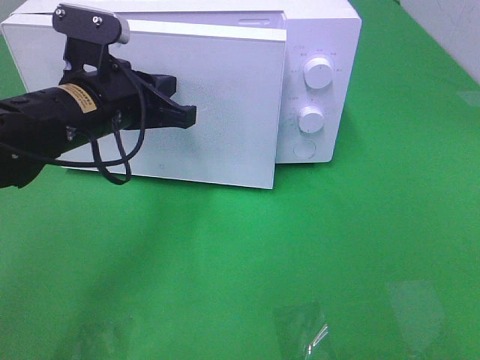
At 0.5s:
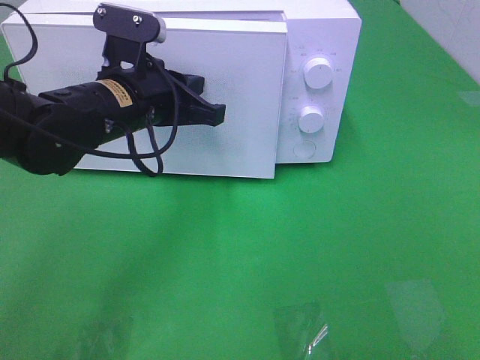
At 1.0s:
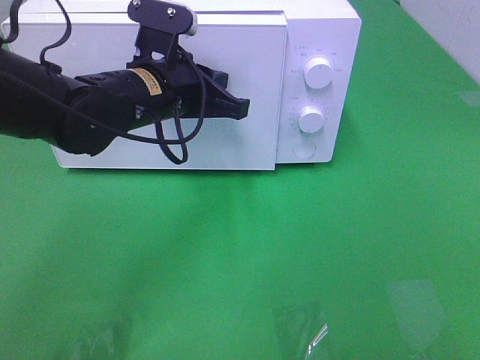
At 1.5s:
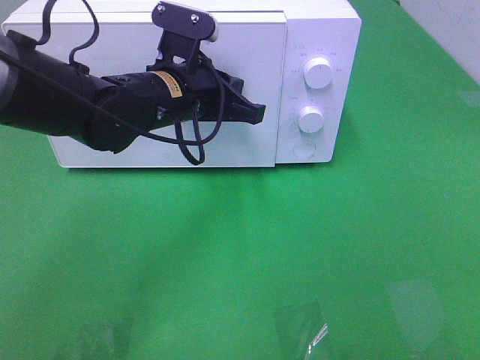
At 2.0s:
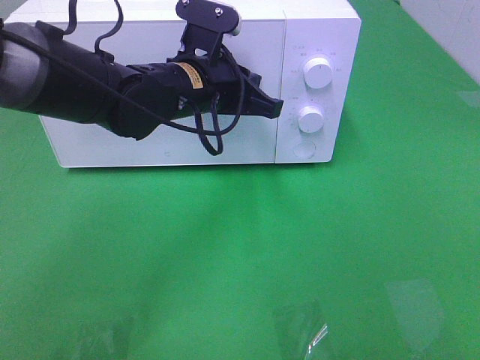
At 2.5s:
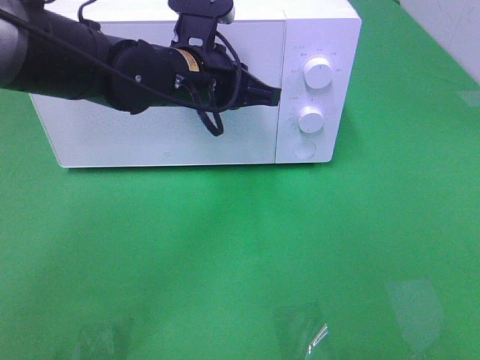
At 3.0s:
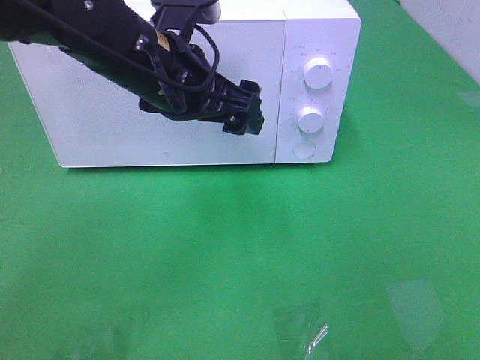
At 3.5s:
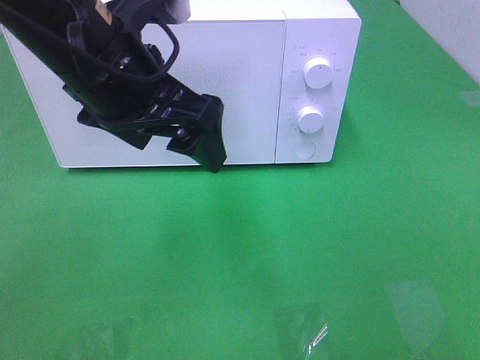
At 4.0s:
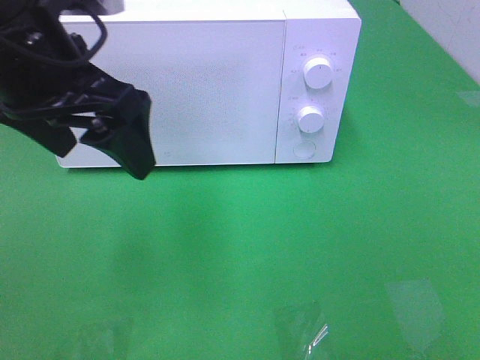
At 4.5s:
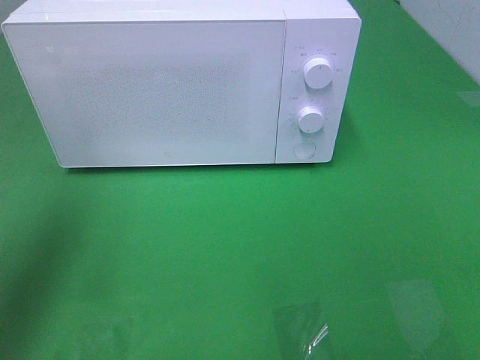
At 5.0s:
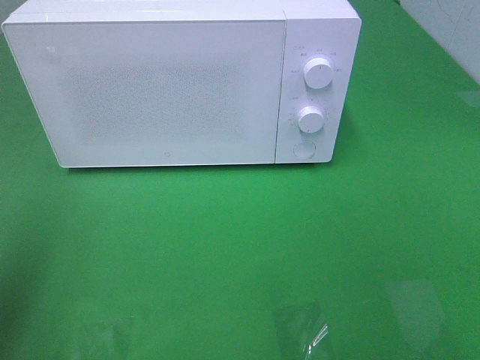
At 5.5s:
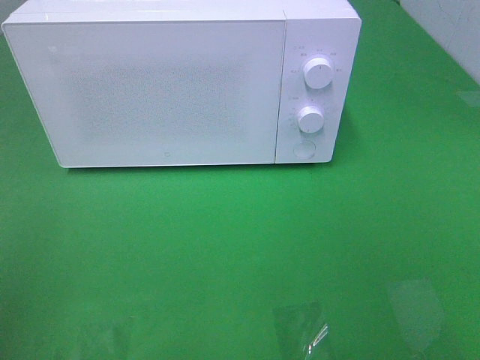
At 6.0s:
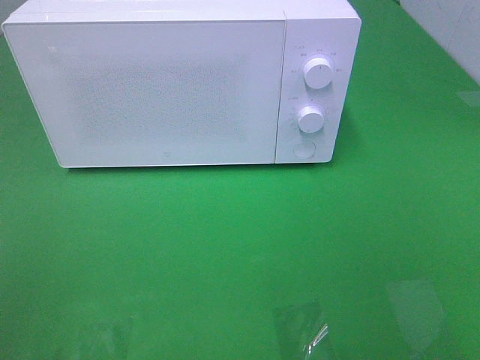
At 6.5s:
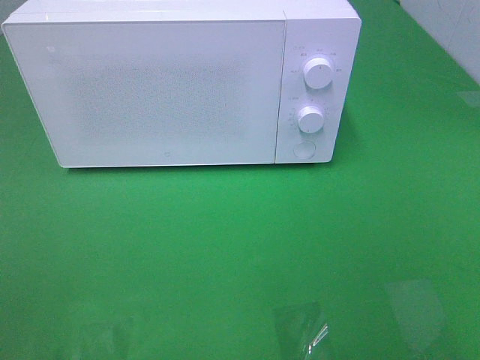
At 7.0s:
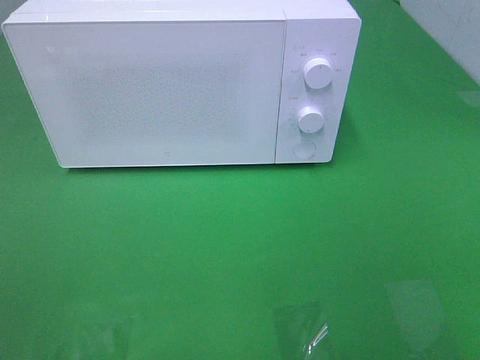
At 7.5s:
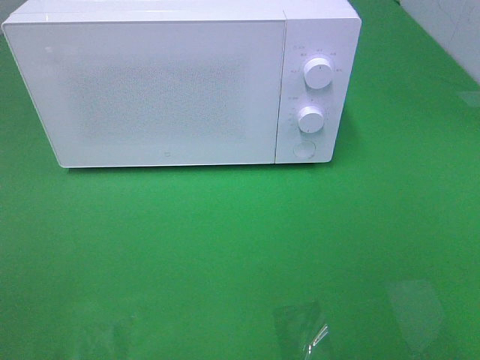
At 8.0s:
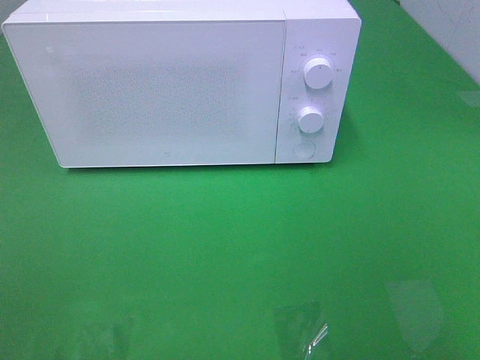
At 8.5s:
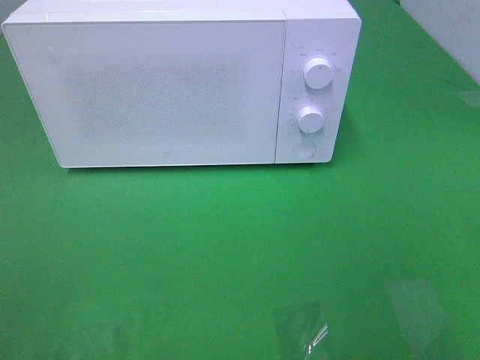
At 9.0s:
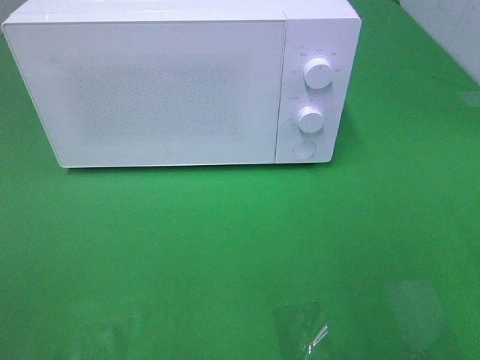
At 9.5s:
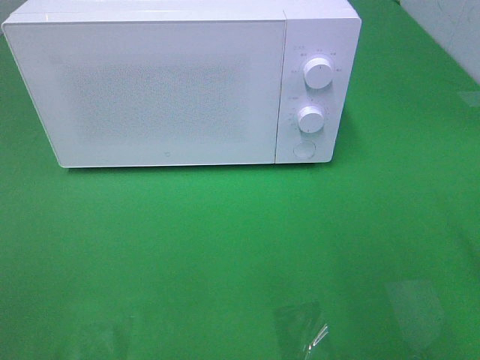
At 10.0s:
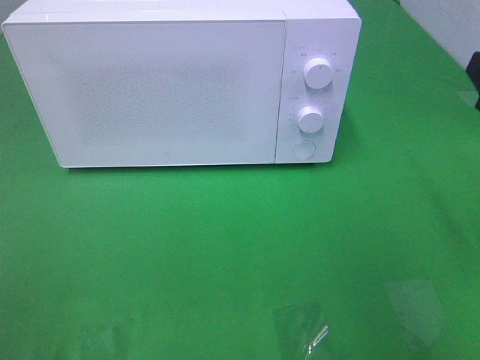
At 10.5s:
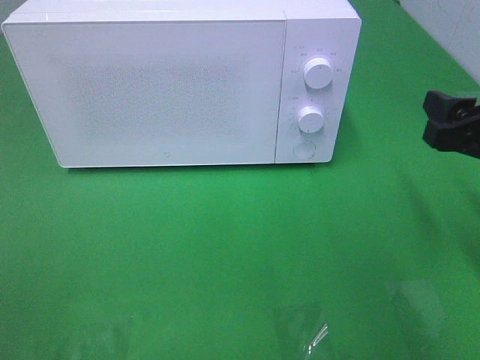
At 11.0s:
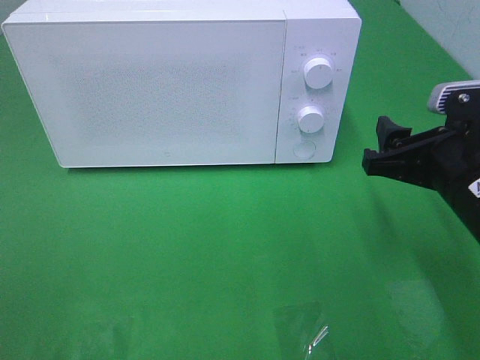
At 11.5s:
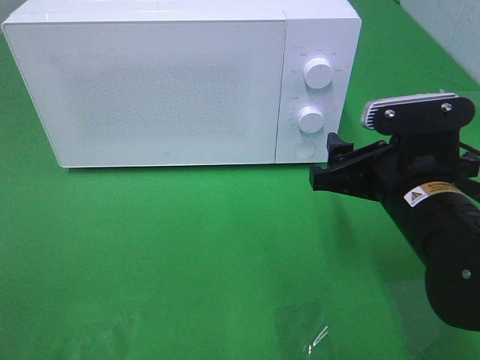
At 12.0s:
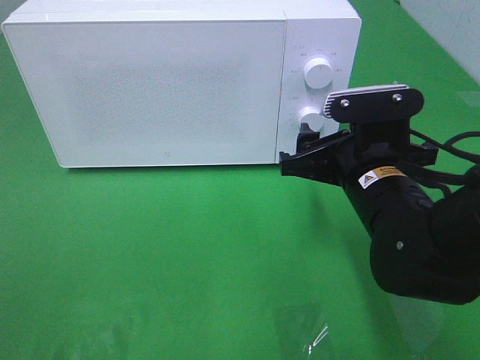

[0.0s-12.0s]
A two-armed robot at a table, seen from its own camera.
Task of the whole recording: Heat the burger.
Step, 0.0s to 2.0s: Left hand: close the microwave door.
0.0s to 2.0s: The left gripper shifts approximately 10 cm to the right and forward.
2.0s to 4.0s: The left gripper heads upward, backward and to the left, covering about 20 cm, and opens.
4.0s to 6.0s: The left gripper shifts some 30 cm backward and to the left.
10.0s to 12.0s: The right gripper shifts roughly 15 cm to the left and downward.

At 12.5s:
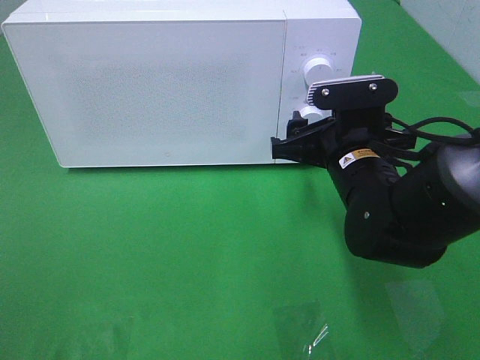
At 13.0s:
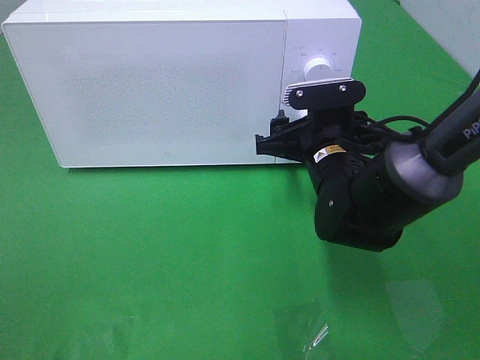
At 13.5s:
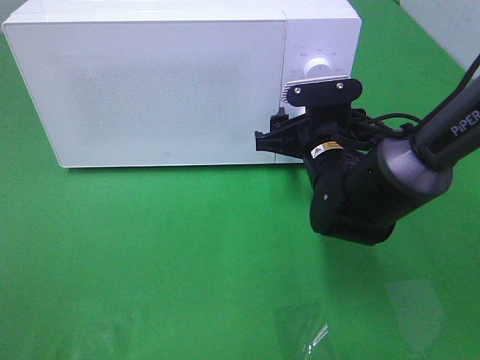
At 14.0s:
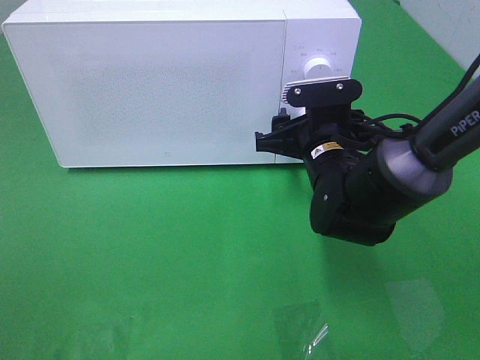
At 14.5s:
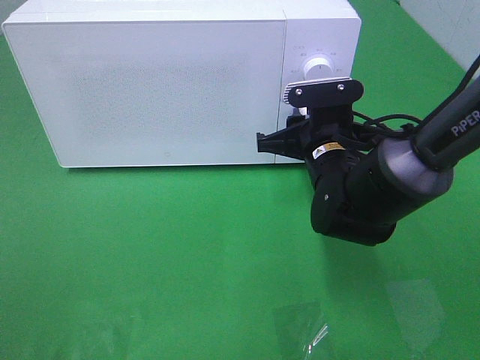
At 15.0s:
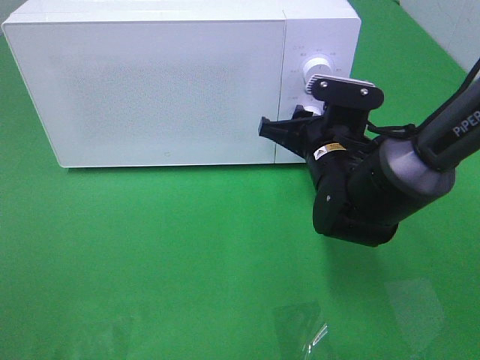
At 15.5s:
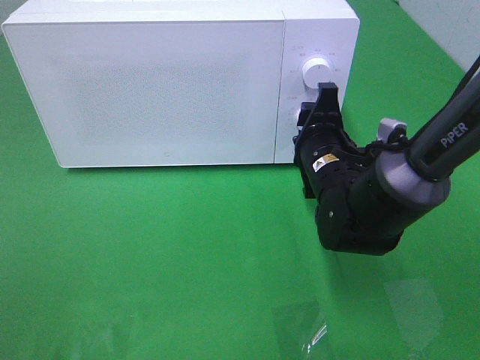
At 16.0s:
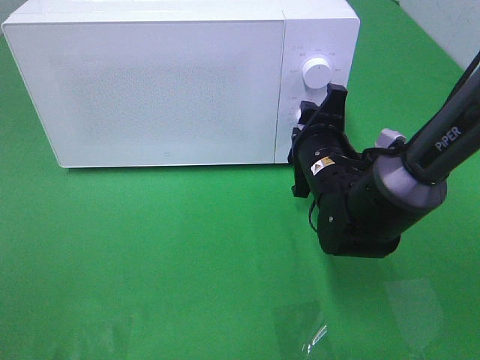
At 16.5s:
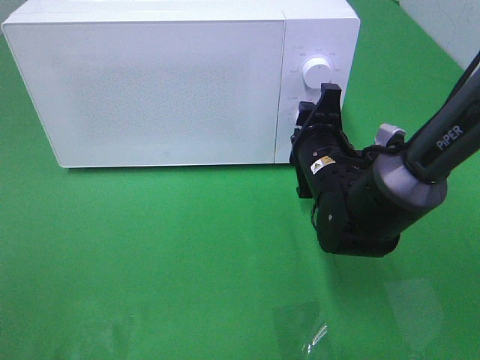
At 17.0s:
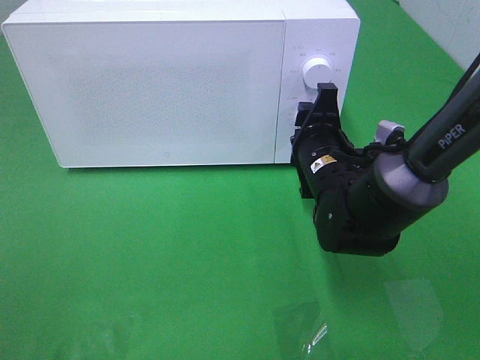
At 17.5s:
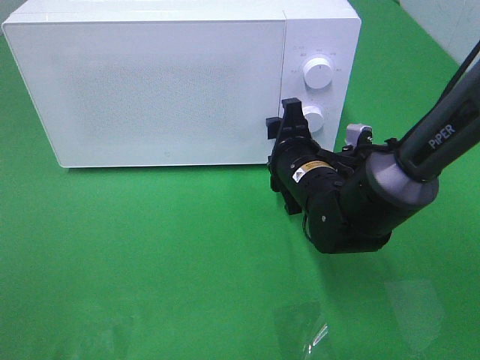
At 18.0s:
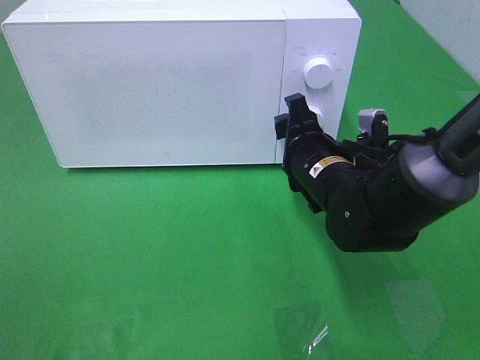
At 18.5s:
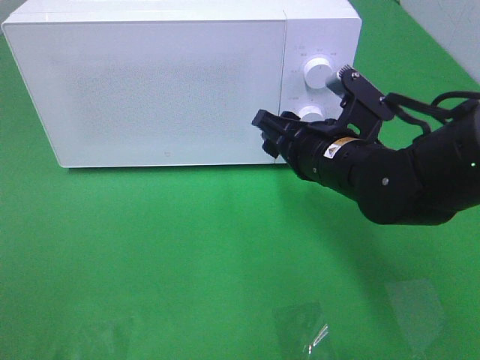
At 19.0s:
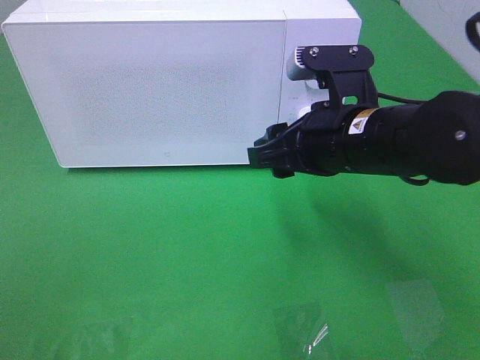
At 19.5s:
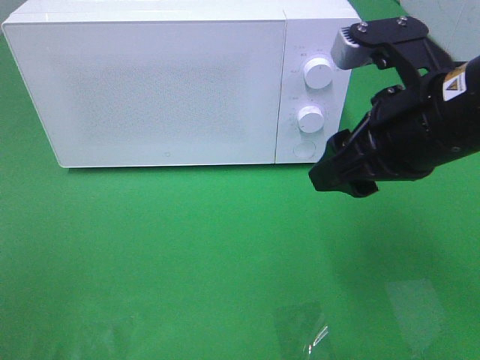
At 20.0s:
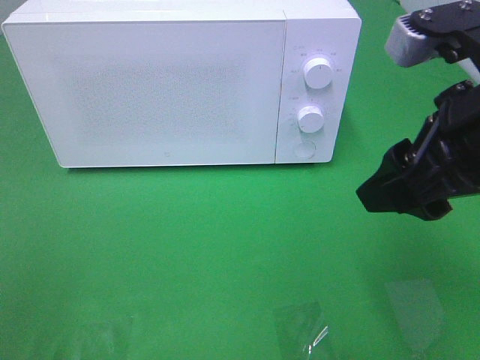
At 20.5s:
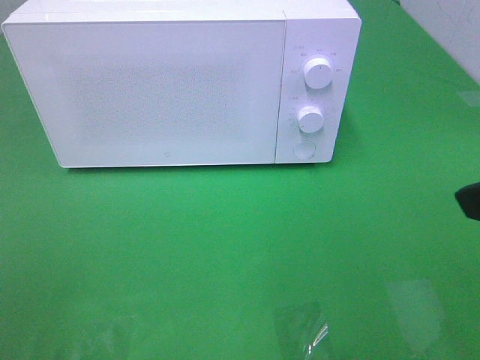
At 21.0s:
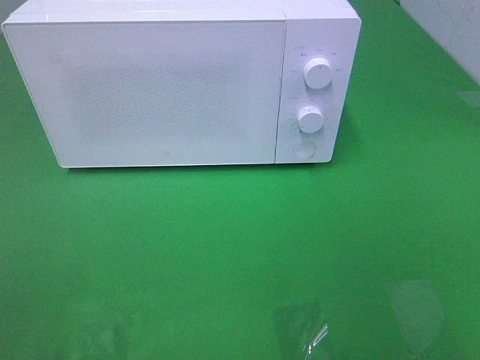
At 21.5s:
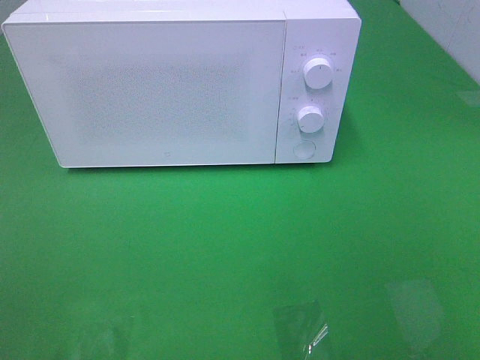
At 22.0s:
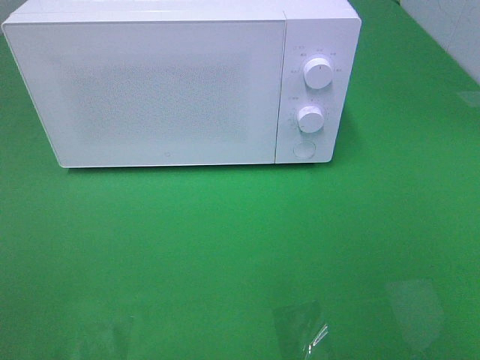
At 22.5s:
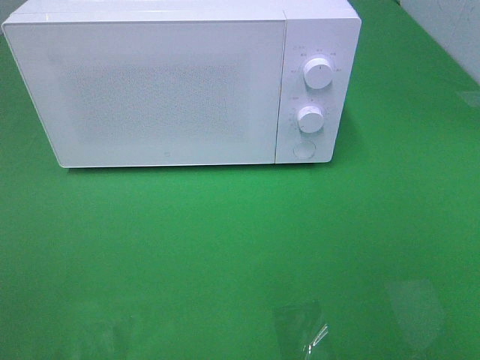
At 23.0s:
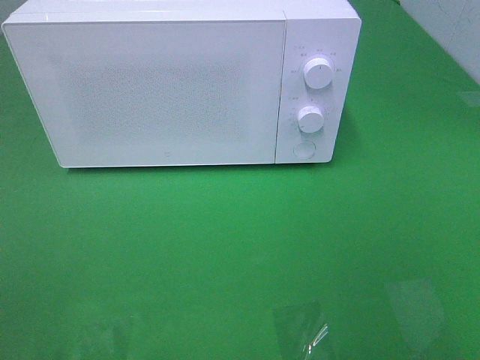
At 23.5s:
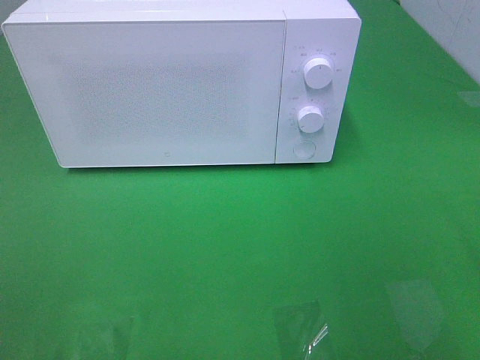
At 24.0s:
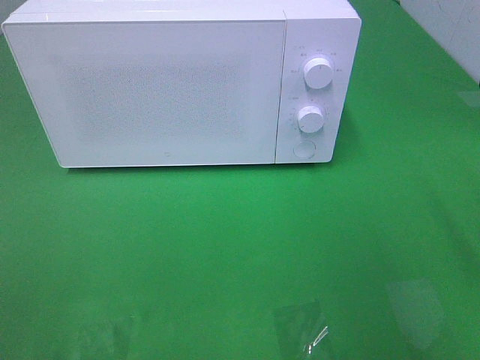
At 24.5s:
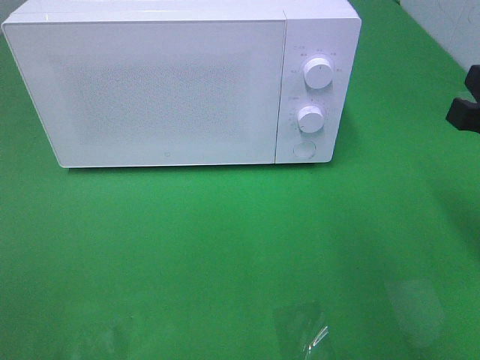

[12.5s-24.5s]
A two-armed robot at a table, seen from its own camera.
Task of the whole recording: Heat the burger.
Step, 12.5s to 17.0s: Right hand: twist timer button.
12.5s to 14.5s: The right gripper closes.
16.5s to 18.5s: The right gripper shifts by about 5 cm.
18.5s to 20.5s: The right gripper heads backward, upward and to the right, covering roughly 25 cm.
22.5s to 24.5s: The right gripper moves forward, some 20 cm, and closes up.

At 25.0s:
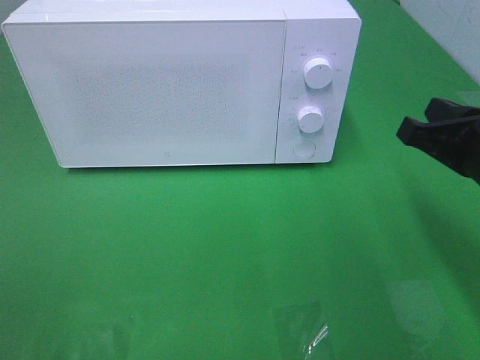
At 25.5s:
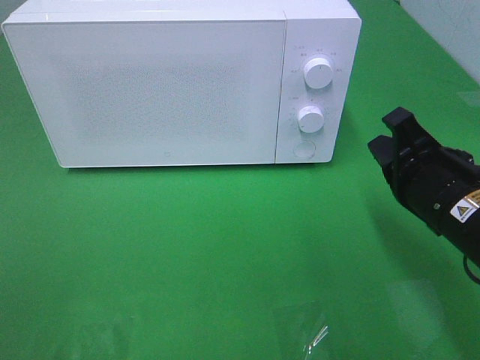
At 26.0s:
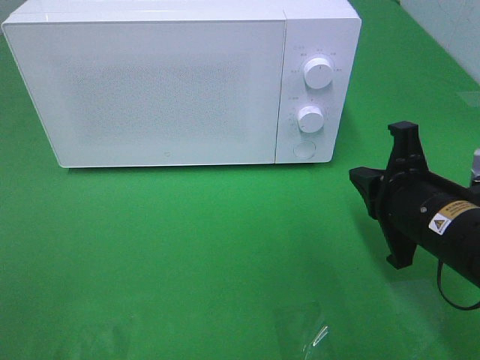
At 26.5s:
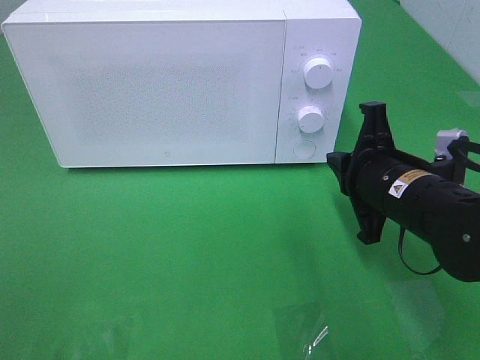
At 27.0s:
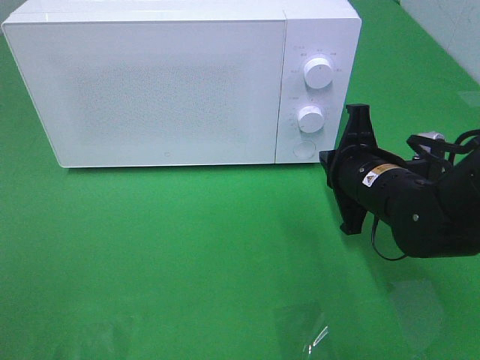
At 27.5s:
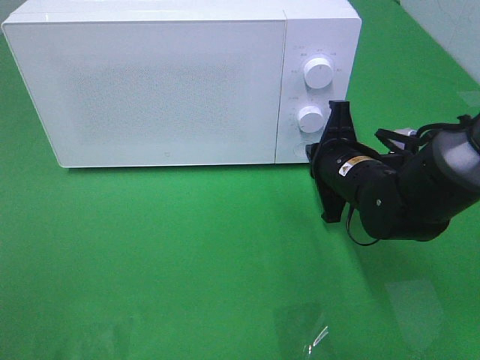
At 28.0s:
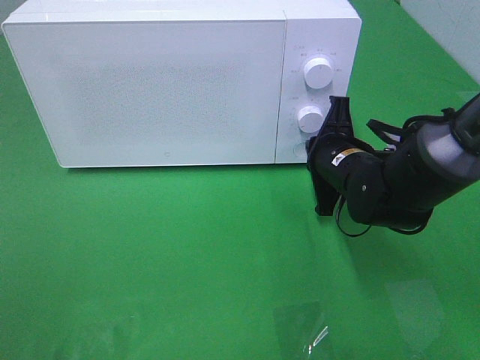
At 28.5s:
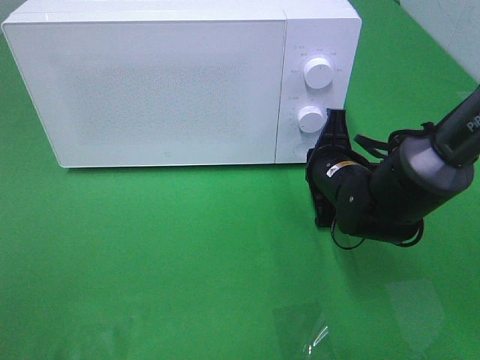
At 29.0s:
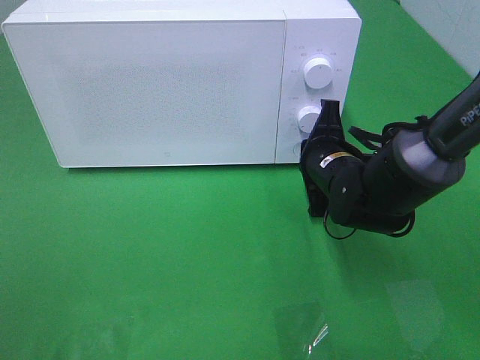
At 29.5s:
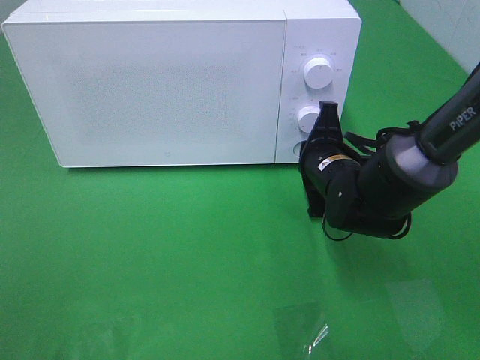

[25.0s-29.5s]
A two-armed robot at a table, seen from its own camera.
Task of the whole recording: Heat the burger.
25.0s to 27.0s: The right gripper travels downward, forward and to the left by approximately 15 cm.
27.0s to 29.5s: The right gripper moves approximately 5 cm.
